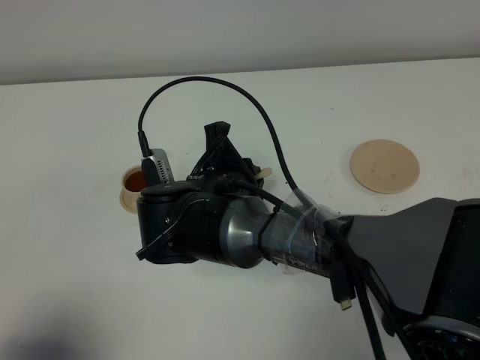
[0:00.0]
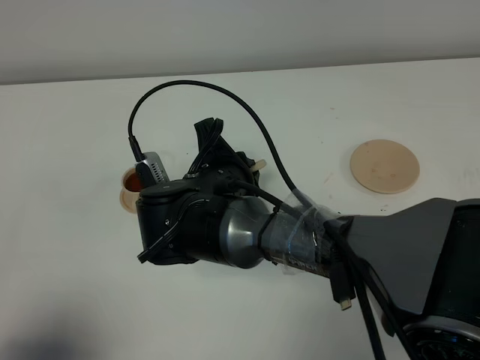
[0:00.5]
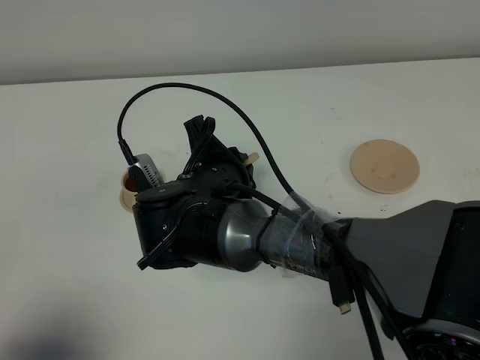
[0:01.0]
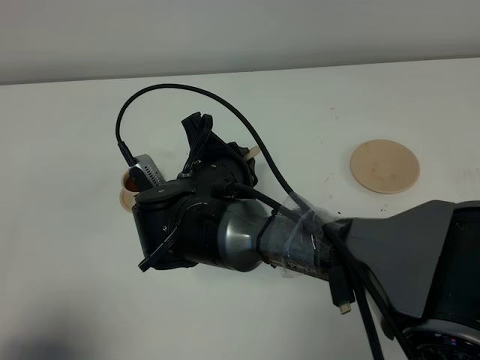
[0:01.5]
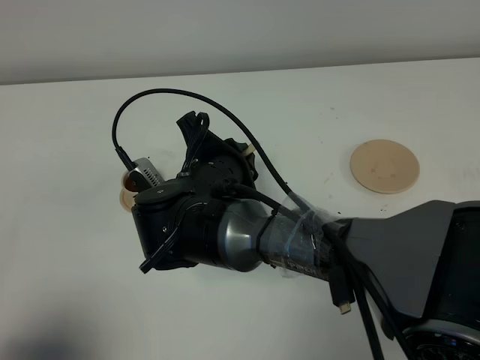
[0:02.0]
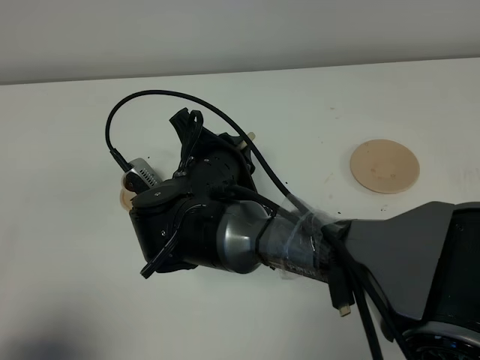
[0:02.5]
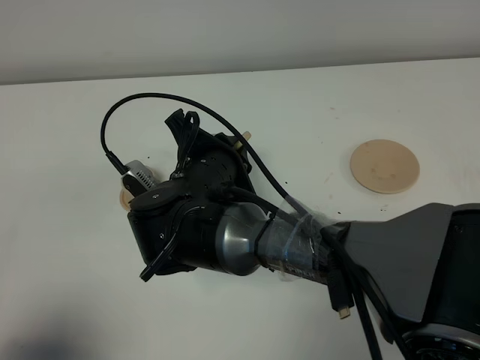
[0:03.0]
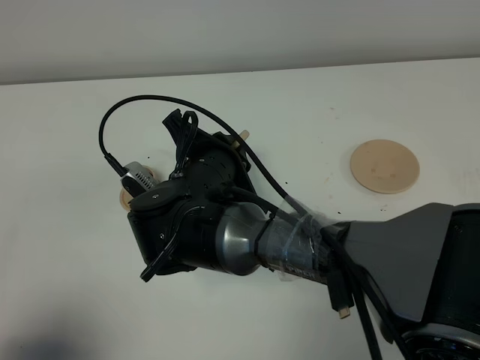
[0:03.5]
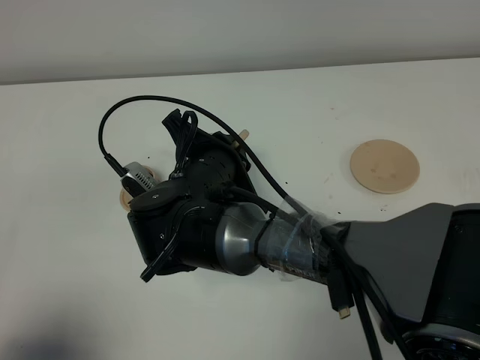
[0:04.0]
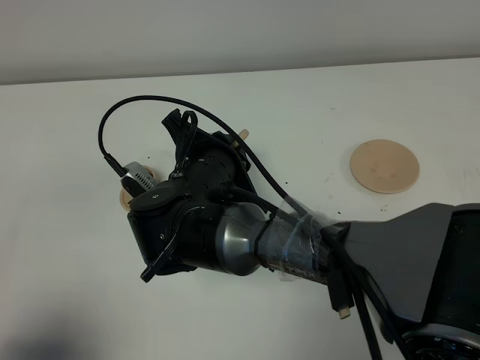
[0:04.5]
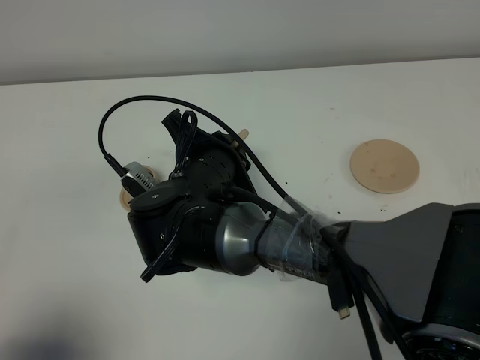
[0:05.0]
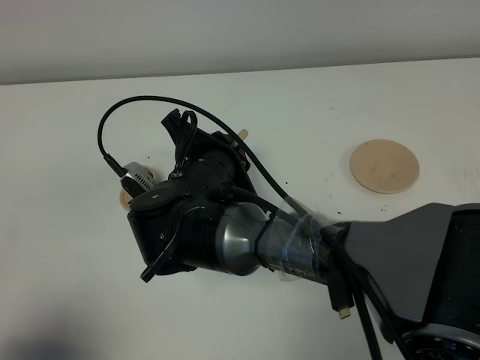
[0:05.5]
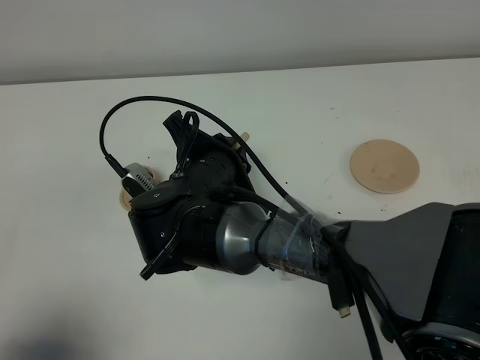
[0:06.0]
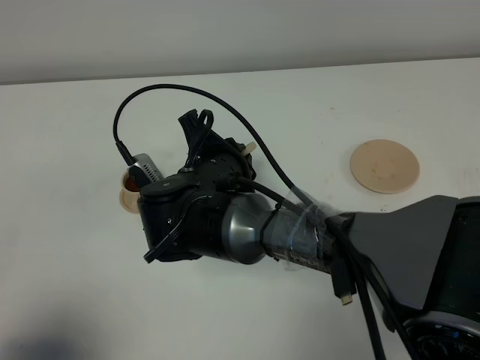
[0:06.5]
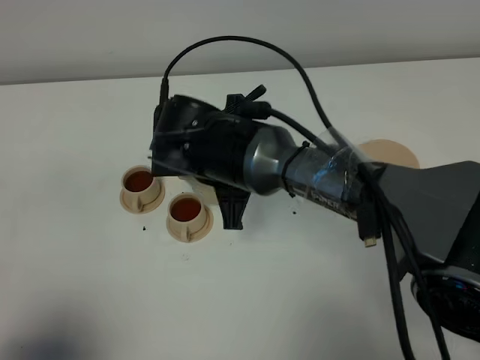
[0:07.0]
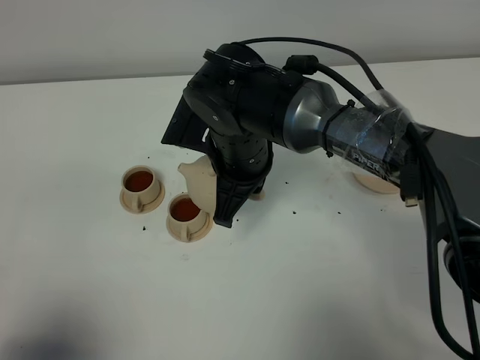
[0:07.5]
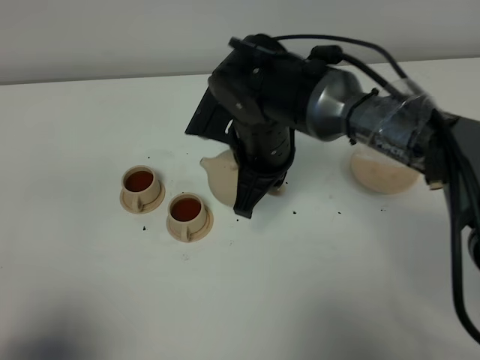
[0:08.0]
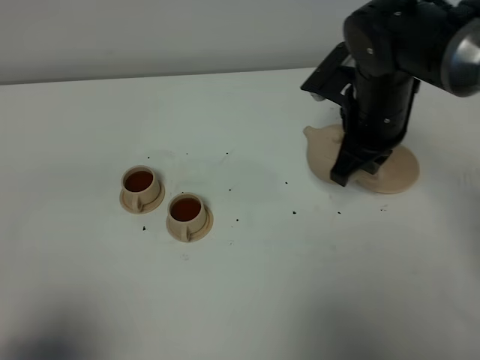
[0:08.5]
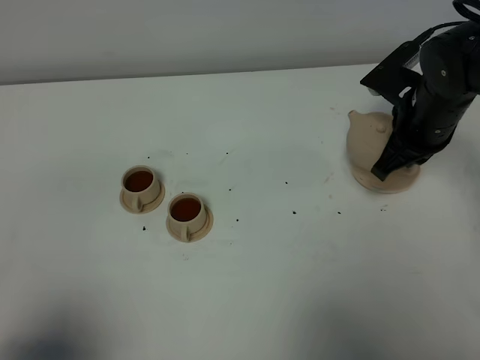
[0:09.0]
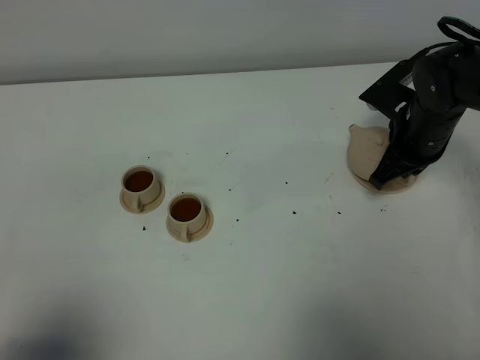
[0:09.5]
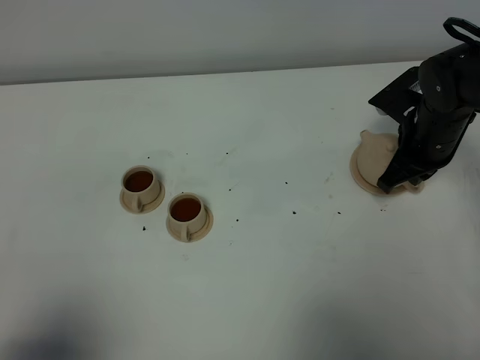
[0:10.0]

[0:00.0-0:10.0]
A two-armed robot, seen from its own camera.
Task of the whole recording: grasp the brown teapot and pour the tea into the two brown teacups one by one, put the brown teapot back in its original place.
Step, 0:00.0 to 0:06.5: Pour tea into the teacup with the right gripper.
0:00.0 to 0:02.0: The grippers move only a little.
0:02.0 to 0:04.0: The grippers stay close to where they were, moving slightly.
0:04.0 to 0:06.0: The two grippers keep their place.
0:06.0 to 0:08.0: The right gripper moves to the right and forward, approximately 10 cm.
0:08.0 to 0:10.0: The right gripper is displaced to the right by approximately 20 cm.

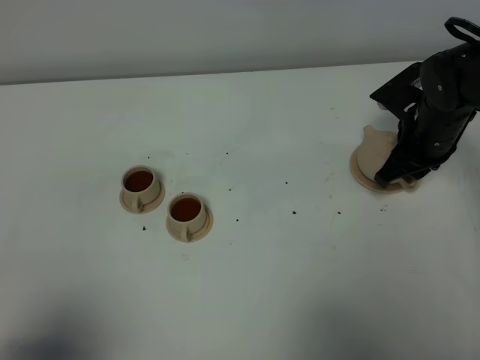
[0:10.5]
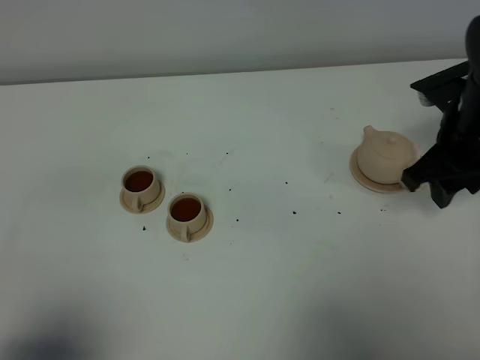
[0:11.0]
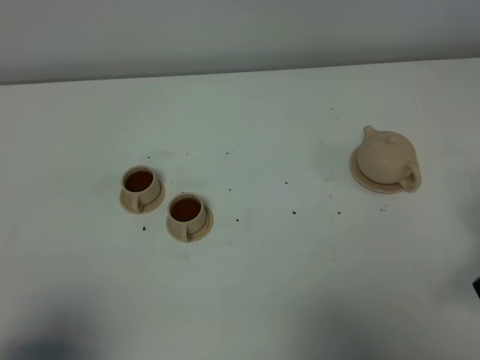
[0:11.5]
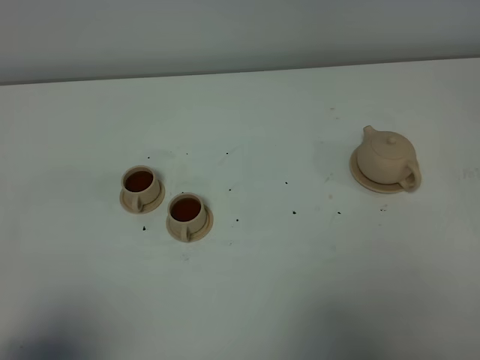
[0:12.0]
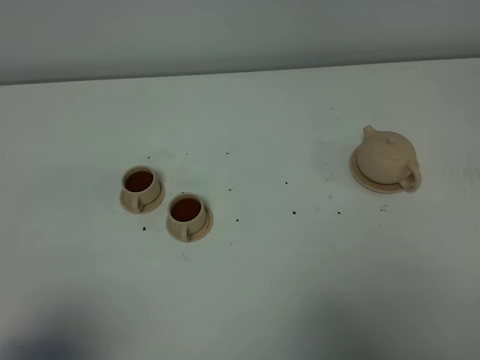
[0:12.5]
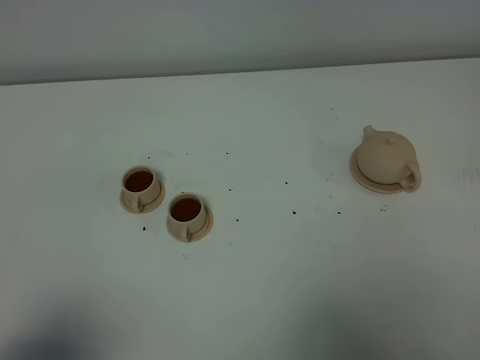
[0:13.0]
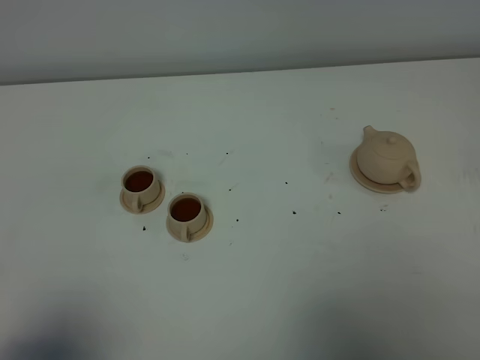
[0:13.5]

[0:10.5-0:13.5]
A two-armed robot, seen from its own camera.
Task of the whole recording: grasp the brown teapot and pour the tea into the two brown teacups one by one, put the brown teapot back in its original place.
0:10.5 to 0:12.0: The right gripper shifts approximately 35 cm backward.
